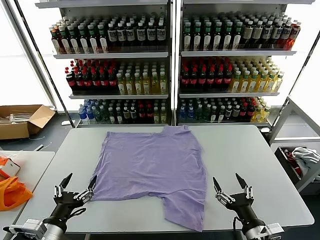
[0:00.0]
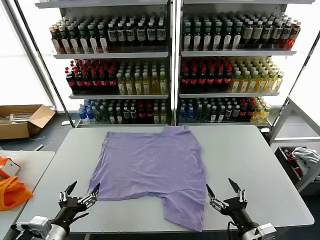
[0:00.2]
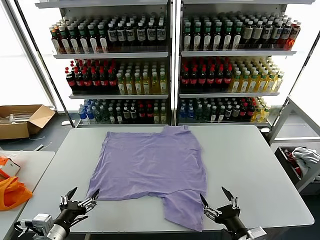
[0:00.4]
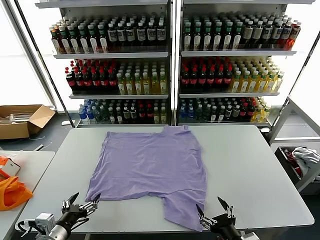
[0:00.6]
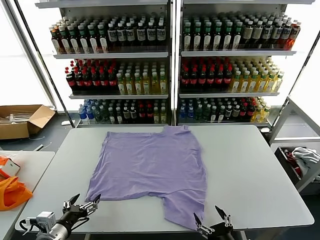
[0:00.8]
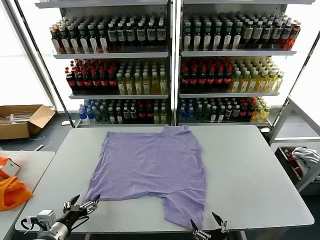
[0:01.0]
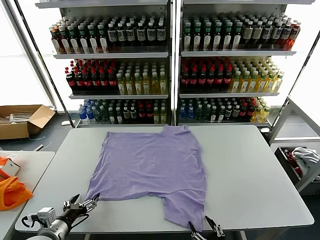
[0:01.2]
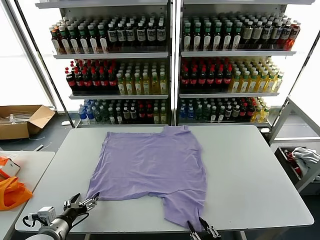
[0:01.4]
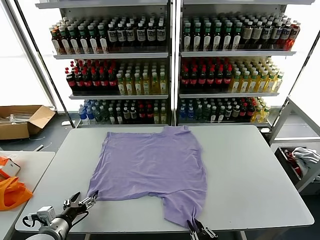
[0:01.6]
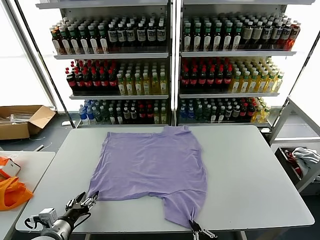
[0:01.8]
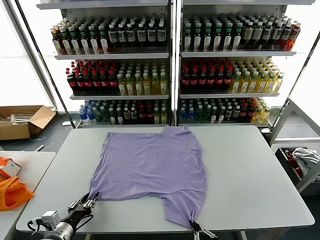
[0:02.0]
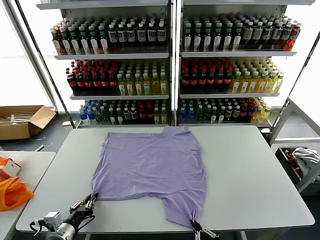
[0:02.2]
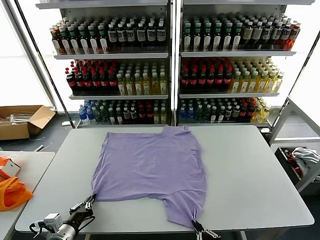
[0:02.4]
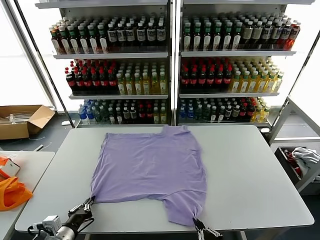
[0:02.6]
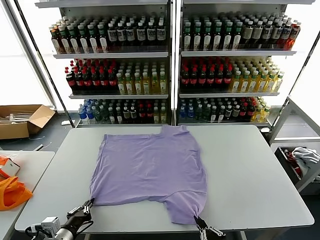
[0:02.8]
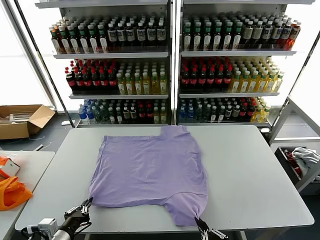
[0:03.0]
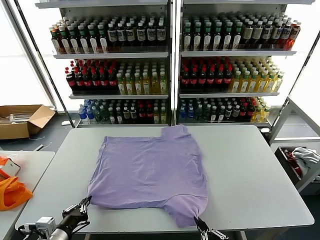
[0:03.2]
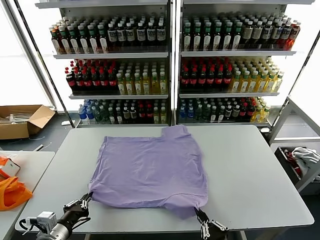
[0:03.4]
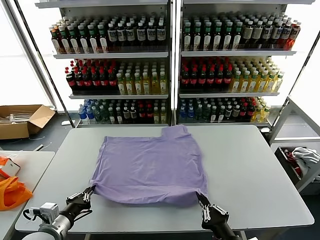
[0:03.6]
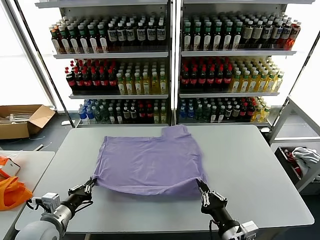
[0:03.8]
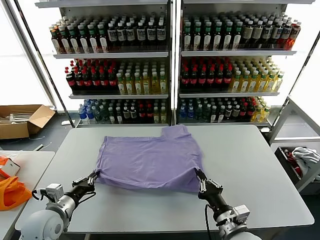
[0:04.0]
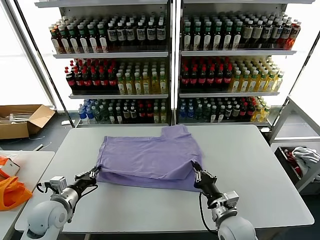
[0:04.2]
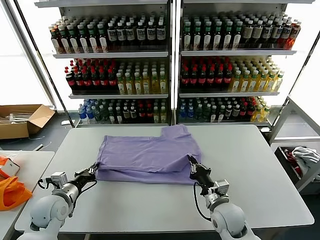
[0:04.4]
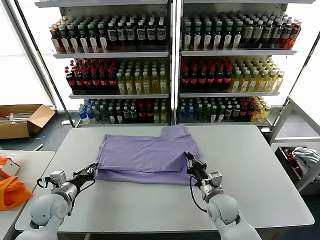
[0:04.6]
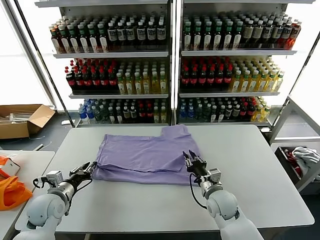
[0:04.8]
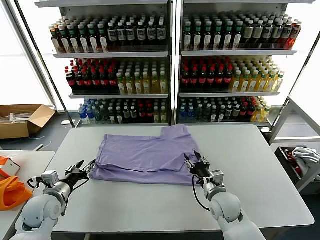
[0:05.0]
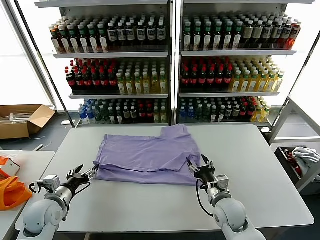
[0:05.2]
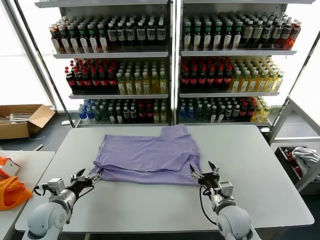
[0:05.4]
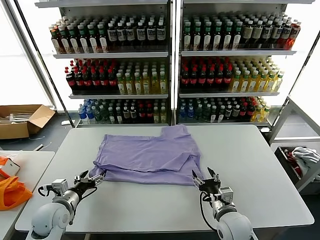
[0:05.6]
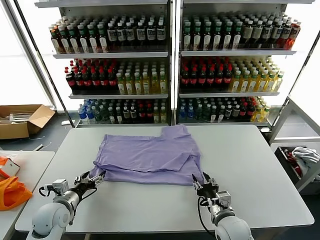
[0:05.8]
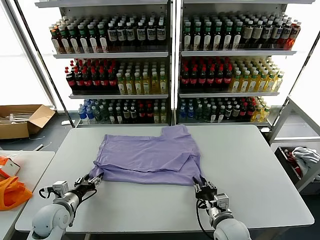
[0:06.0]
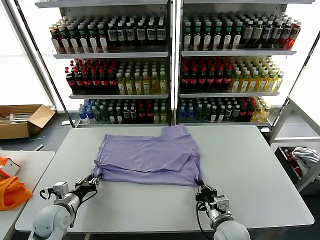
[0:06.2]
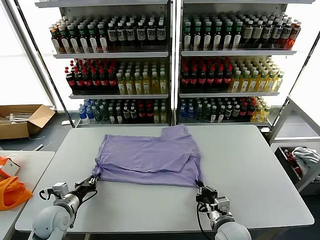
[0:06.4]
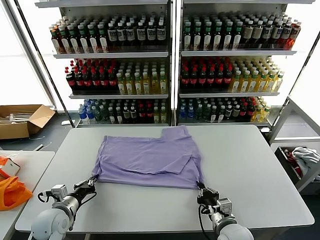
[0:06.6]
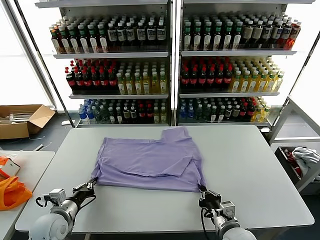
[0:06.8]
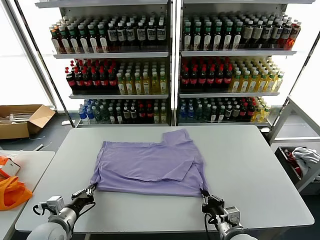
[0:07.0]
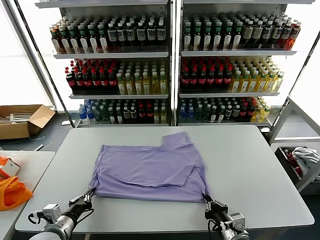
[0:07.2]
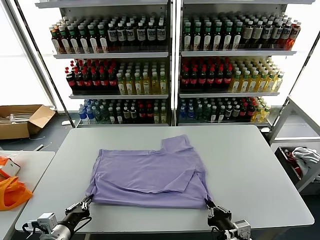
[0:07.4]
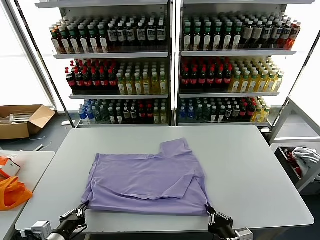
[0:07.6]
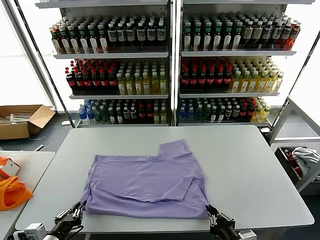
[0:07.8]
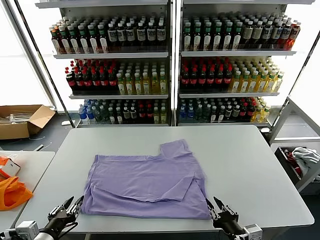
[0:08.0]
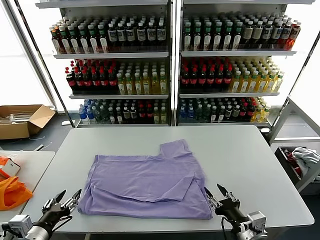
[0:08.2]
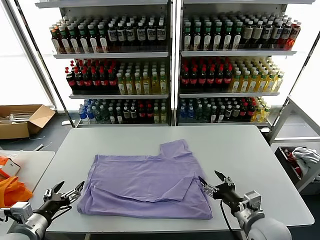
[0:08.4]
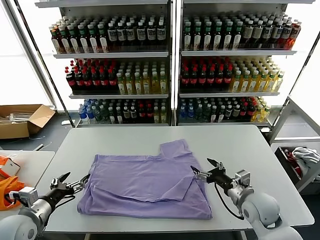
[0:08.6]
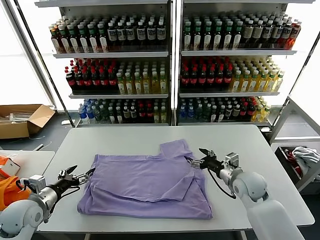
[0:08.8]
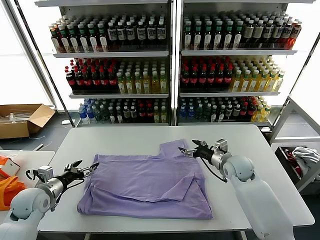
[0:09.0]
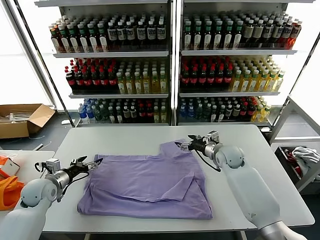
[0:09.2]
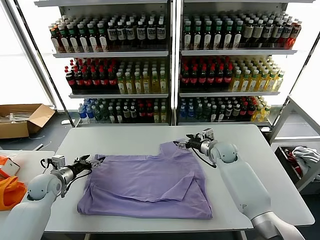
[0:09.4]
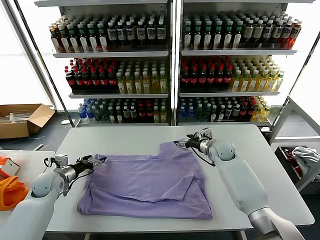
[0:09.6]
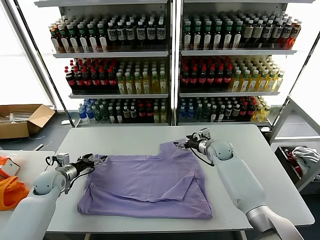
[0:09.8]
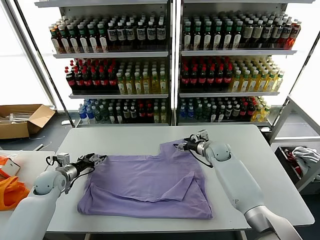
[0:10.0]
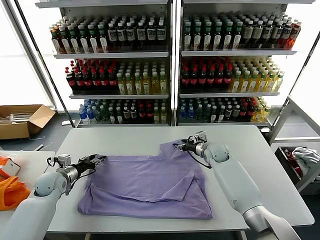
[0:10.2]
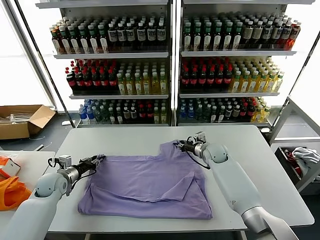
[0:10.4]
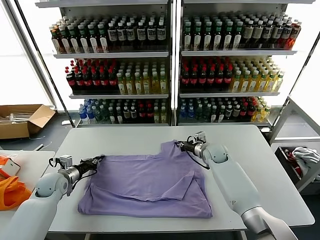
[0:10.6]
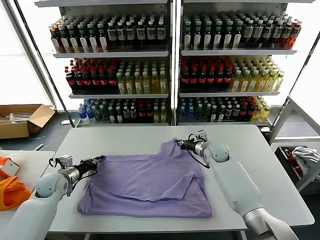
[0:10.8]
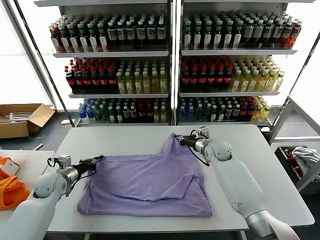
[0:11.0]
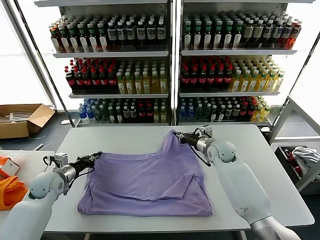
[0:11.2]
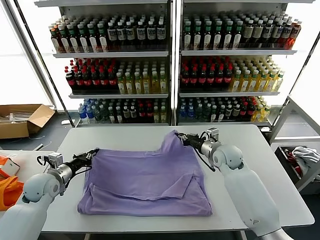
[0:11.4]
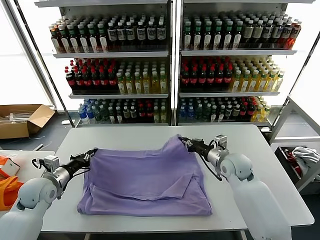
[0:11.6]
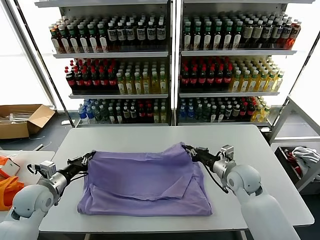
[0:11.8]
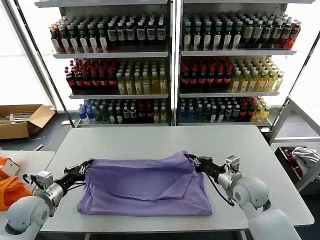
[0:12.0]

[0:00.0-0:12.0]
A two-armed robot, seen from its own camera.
Task of the whole recording: fold and organize the clothes.
Step, 0:00.0 to 0:02.2: use both grippers simultaneously to clamp the lower edge of the clothing fabric.
Step, 0:02.4 to 0:05.0: use both grippers to drag the lower edge of the fabric forward and fold it over the upper edge.
Step, 0:05.2 to 0:08.0: Drag the clothes downward with both gripper.
Step, 0:08.2 to 0:10.4: use both grippers simultaneously to clamp the upper edge of the clothing fabric.
0:01.6 to 0:03.0: The right gripper moves approximately 5 cm; the left gripper ends up some 5 cm from where it was, and closes up.
0:03.0 to 0:04.4: The right gripper travels forward by about 25 cm. The left gripper heads forward, covering about 15 cm.
0:04.4 to 0:06.0: The left gripper opens. Meanwhile the right gripper shifts approximately 5 cm backward, and opens, then closes once more.
0:06.0 to 0:07.6: Both grippers move backward, approximately 15 cm. The left gripper closes up.
0:07.6 to 0:09.0: The left gripper goes about 20 cm forward and to the left, and opens; the right gripper goes some 35 cm forward, and opens up.
0:09.0 to 0:10.4: The two grippers go roughly 10 cm forward. The left gripper closes its fingers; the right gripper closes up.
0:10.4 to 0:12.0: The left gripper is displaced backward and upward by about 15 cm, and closes, while the right gripper shifts about 20 cm backward.

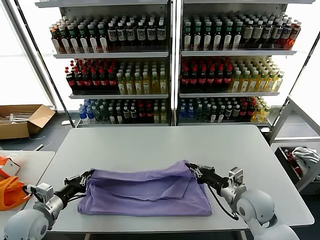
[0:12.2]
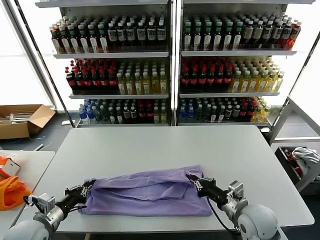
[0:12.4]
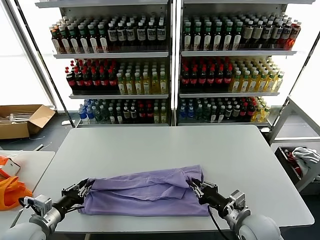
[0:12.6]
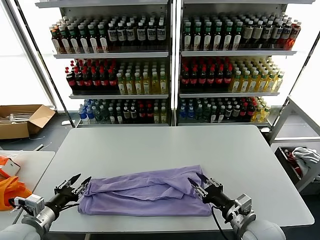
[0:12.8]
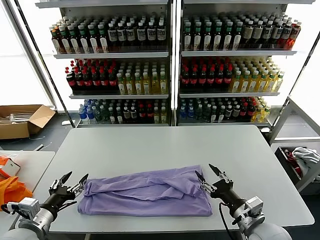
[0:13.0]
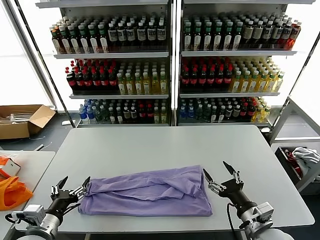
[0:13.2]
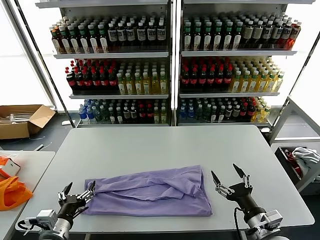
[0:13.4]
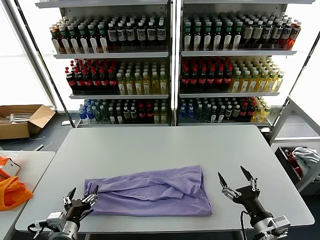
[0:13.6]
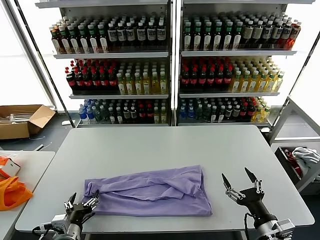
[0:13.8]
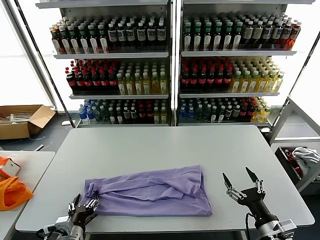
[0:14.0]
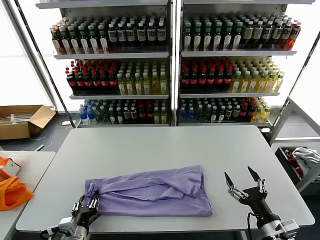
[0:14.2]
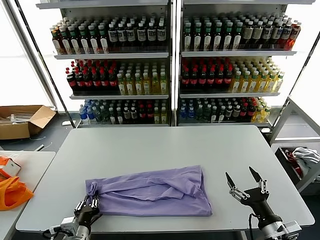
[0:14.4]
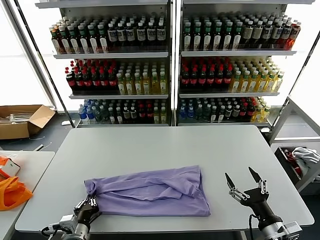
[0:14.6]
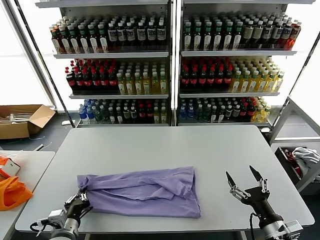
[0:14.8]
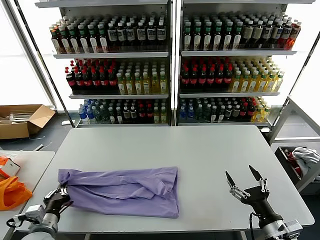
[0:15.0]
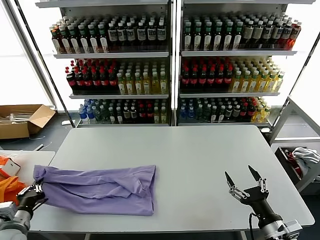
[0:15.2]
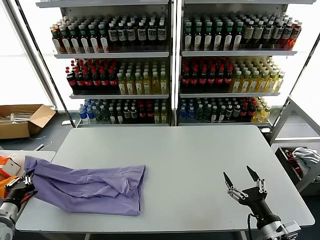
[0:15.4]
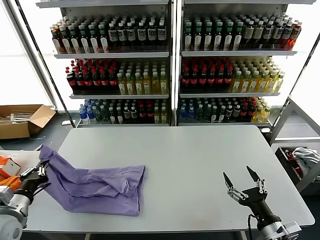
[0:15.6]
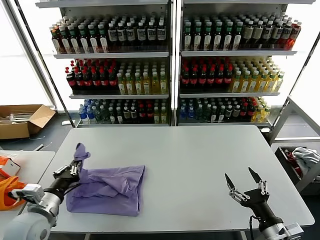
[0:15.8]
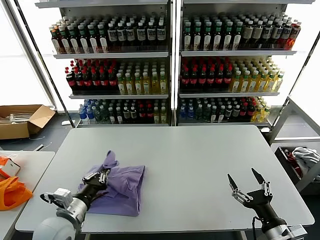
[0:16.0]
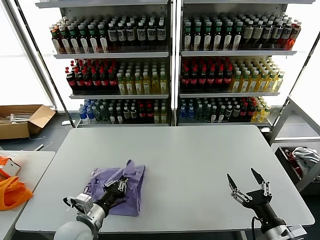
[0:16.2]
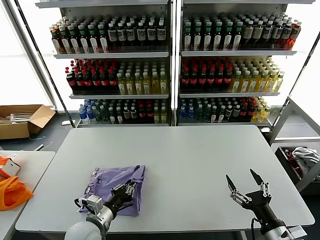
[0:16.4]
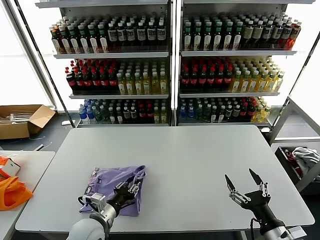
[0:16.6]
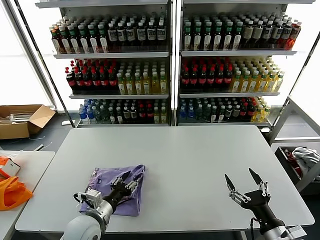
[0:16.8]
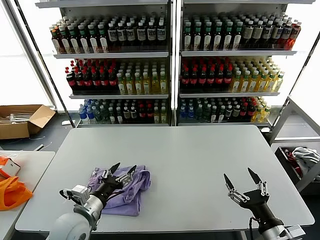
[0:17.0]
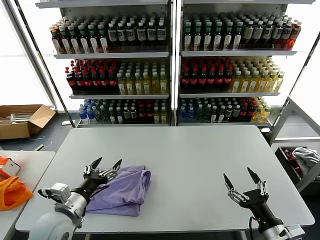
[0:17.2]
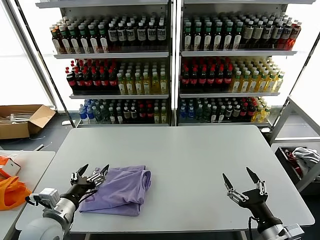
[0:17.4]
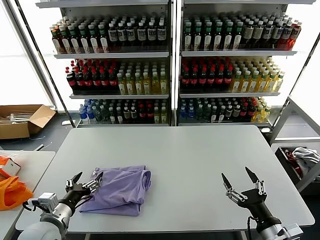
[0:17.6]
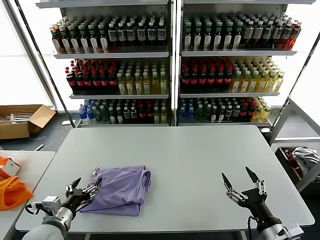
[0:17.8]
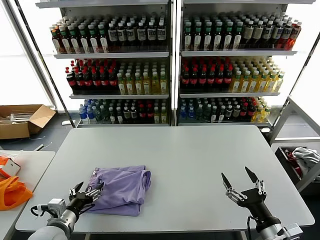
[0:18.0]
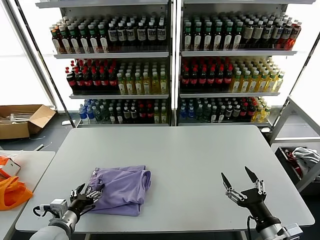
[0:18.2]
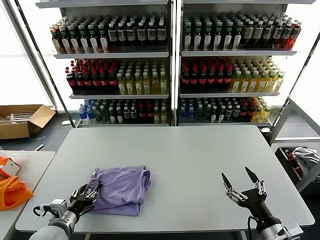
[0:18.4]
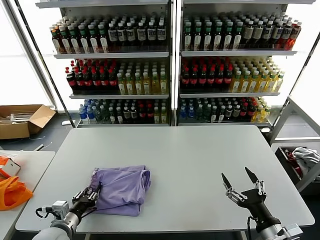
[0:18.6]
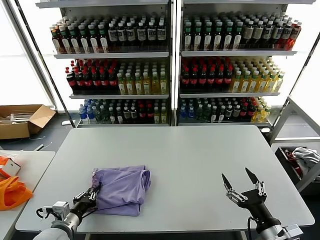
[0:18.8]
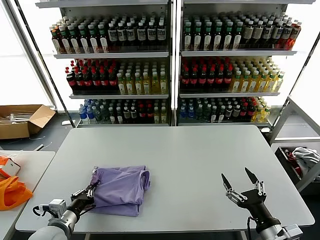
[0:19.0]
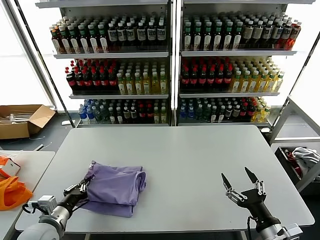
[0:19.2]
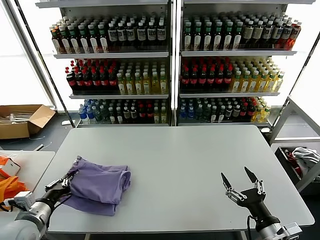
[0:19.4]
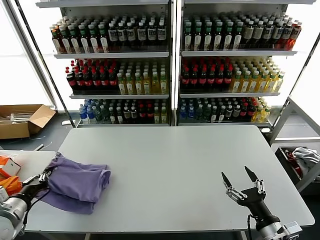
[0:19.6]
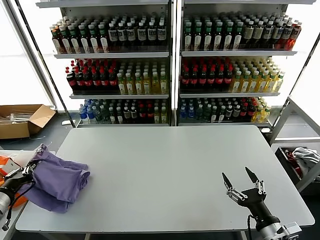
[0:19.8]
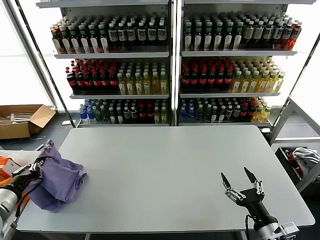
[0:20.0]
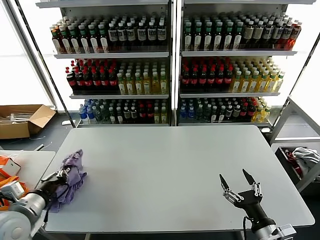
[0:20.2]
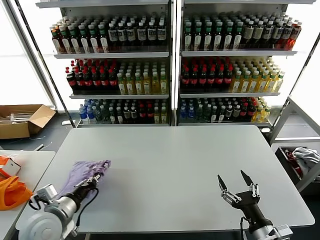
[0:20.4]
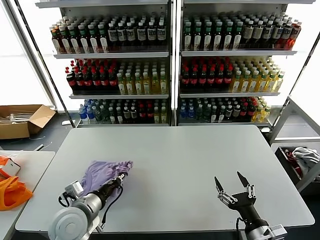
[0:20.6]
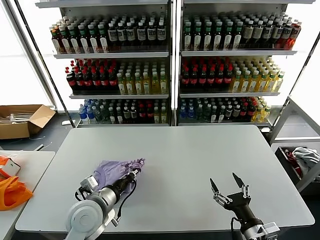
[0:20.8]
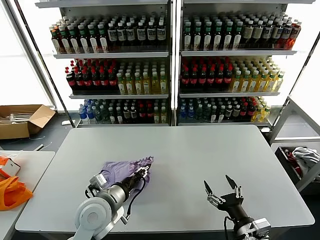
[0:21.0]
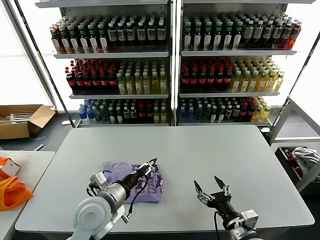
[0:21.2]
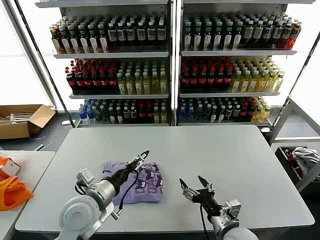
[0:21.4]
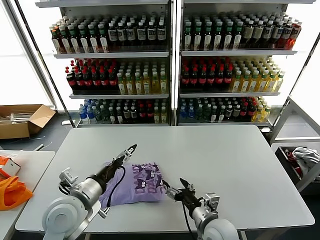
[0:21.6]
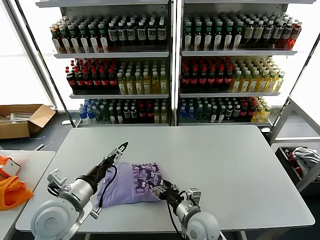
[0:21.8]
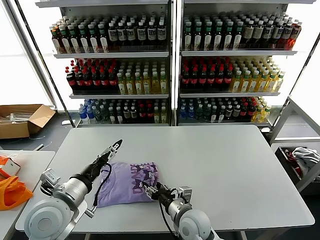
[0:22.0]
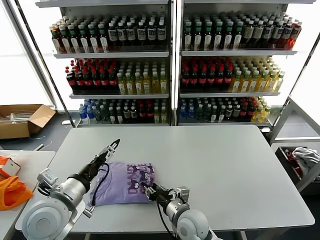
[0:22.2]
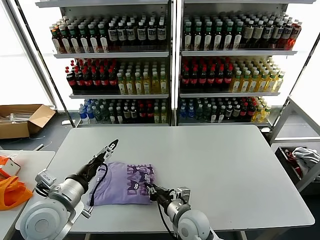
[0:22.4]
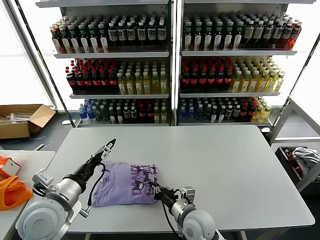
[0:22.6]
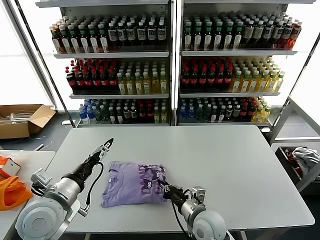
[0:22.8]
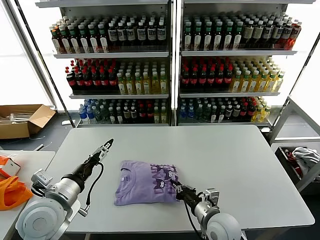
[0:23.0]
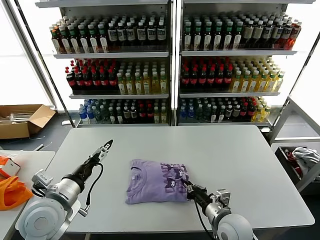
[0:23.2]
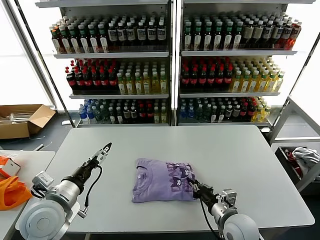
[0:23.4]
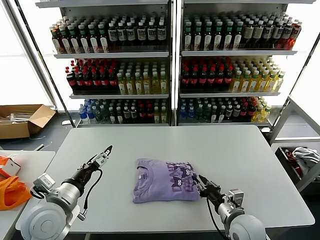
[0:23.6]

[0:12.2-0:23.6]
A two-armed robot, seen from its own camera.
Task of the whole recording: fold and organize the clothes.
Step, 0:12.8 to 0:14.6: use the left gripper to clamp the left edge of the fabric.
Step, 0:14.8 to 0:16.8: use the left gripper to drag the left edge of the fabric to the left and folds it over the right edge.
Step, 0:17.2 to 0:21.0: Flip the folded clothes over with left gripper.
Step, 0:21.2 to 0:23.6: Drag the clothes to the center of the table.
0:12.2 to 0:13.6: The right gripper shifts approximately 15 cm backward, and opens, while the left gripper travels to the right and backward by approximately 10 cm, and opens up.
0:13.6 to 0:15.0: The left gripper travels to the left by about 5 cm, and closes its fingers.
0:15.0 to 0:16.4: The left gripper shifts approximately 10 cm to the right.
0:16.4 to 0:17.8: The left gripper heads to the left, covering about 10 cm, and opens up.
0:17.8 to 0:19.4: The left gripper goes about 5 cm to the left, and closes.
0:19.4 to 0:20.8: The left gripper goes approximately 15 cm to the right.
0:20.8 to 0:22.2: The right gripper heads to the left and forward, covering some 25 cm, and closes up, while the left gripper goes approximately 5 cm upward, and opens its fingers.
0:22.2 to 0:23.6: The right gripper is displaced to the right by about 15 cm.
